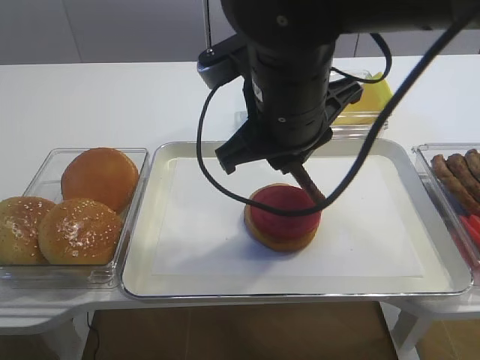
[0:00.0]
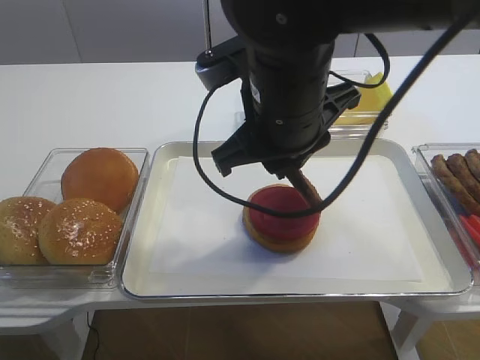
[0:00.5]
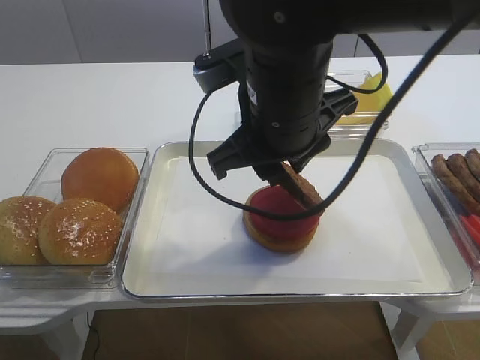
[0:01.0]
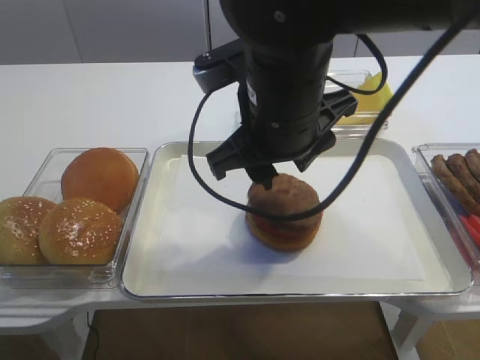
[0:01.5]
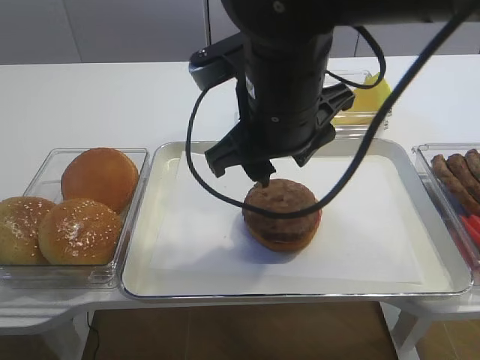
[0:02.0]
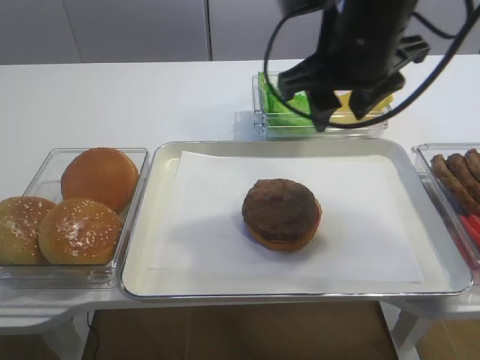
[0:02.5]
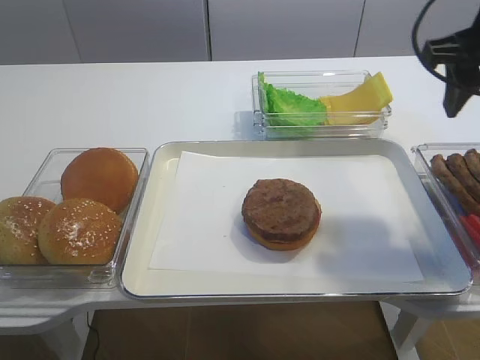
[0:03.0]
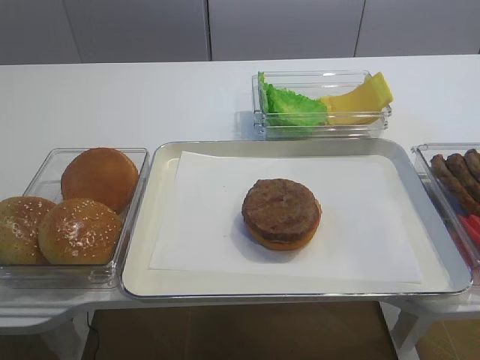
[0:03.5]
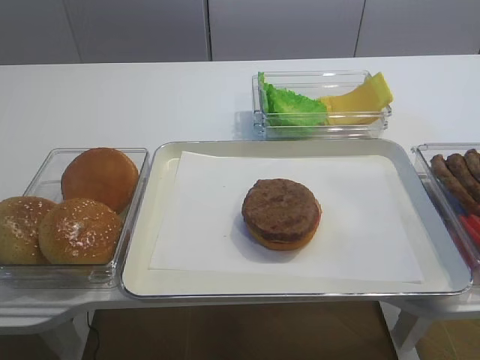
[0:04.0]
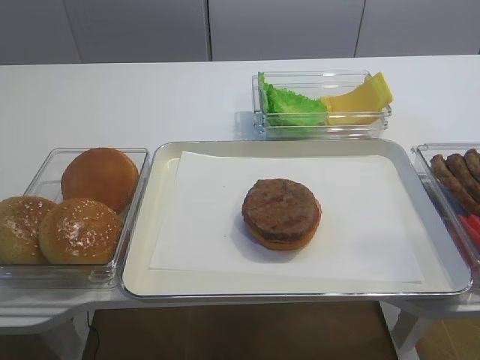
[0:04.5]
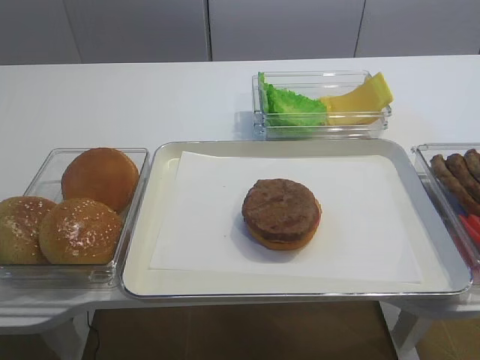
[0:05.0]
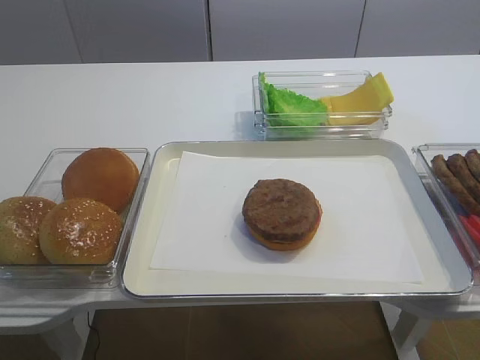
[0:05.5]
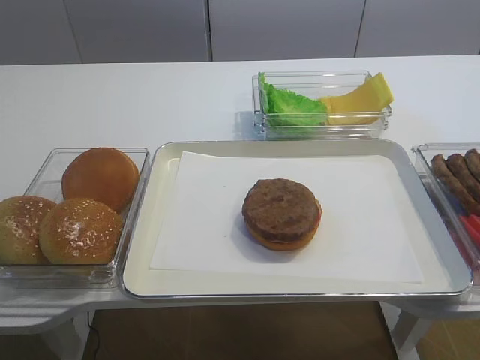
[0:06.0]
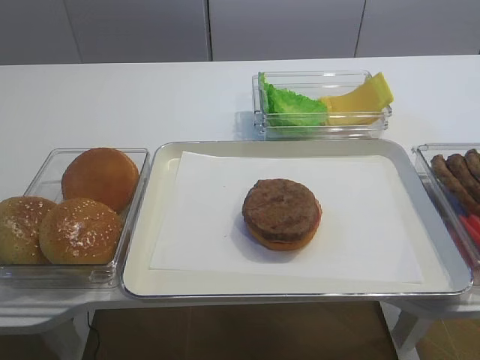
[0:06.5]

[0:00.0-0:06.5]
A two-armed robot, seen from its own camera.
0:00.0 to 0:02.0: The right gripper opens.
0:02.0 to 0:04.5: The right gripper shifts some 35 cm to the right and backward.
